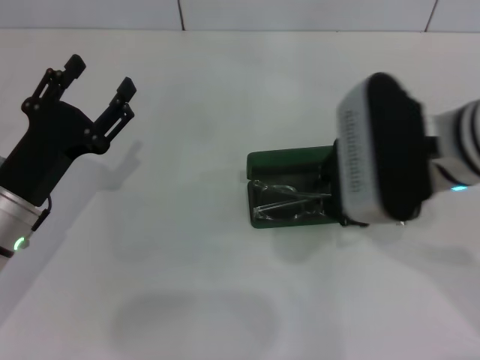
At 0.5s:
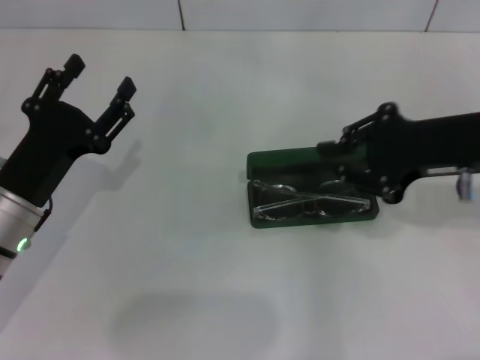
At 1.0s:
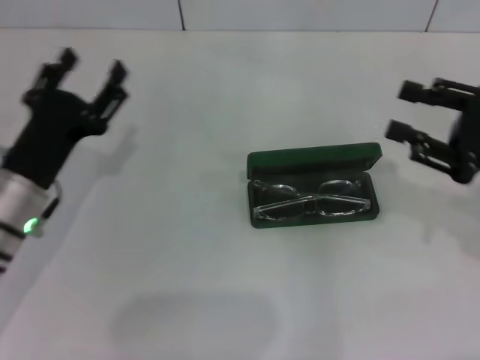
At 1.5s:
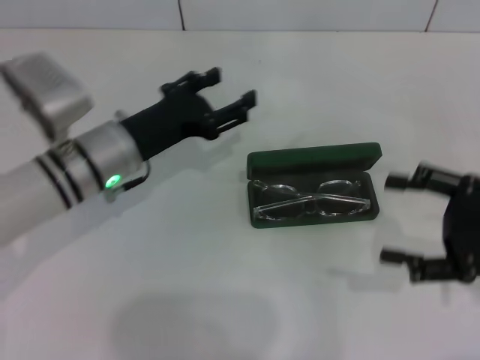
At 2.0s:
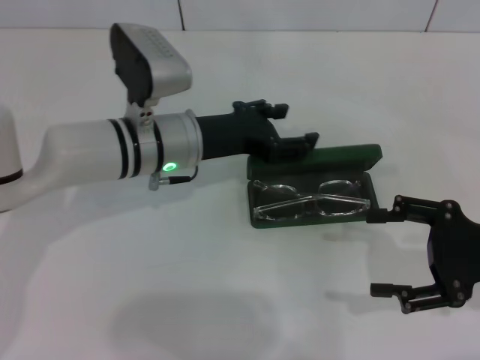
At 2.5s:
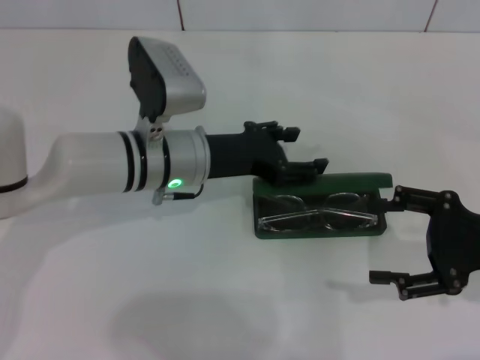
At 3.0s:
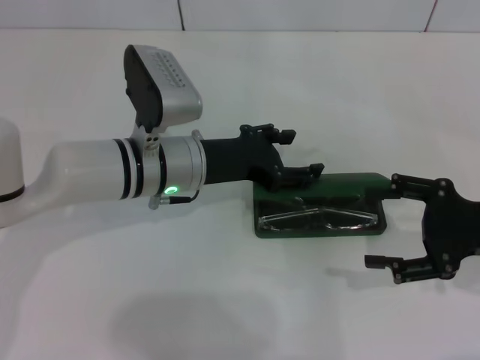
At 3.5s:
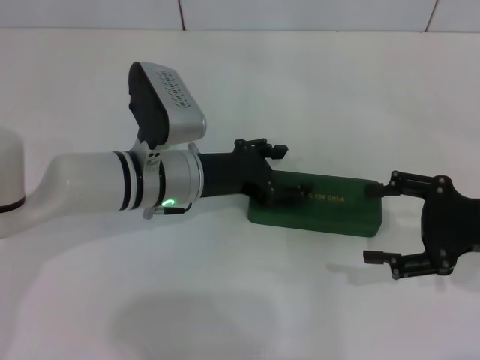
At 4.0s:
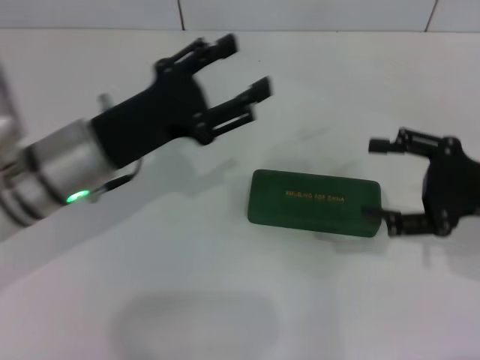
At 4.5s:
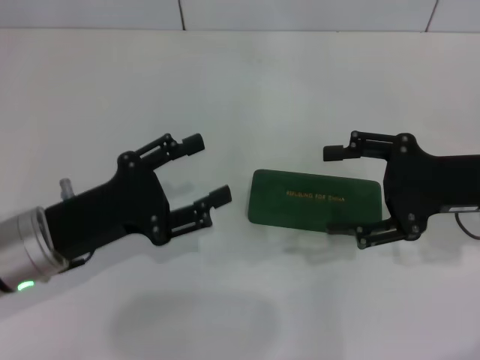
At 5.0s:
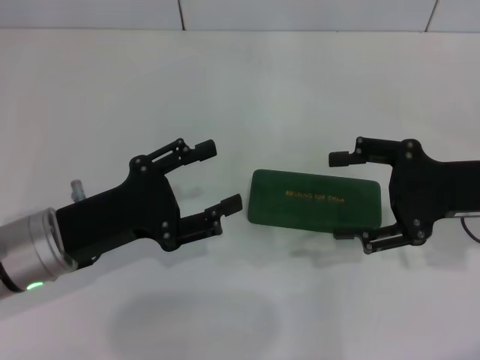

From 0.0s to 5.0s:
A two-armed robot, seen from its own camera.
Step, from 0.0s to 3.0s: Close the glasses case with your left hand.
From 0.0s to 2.5s: The right gripper travels to the right and downward by about 20 cm, and opens; the left gripper moves to the right and forward, approximately 15 cm.
From 2.5s to 5.0s: The right gripper moves some 5 cm. Meanwhile the left gripper shifts about 15 cm to the left and backward.

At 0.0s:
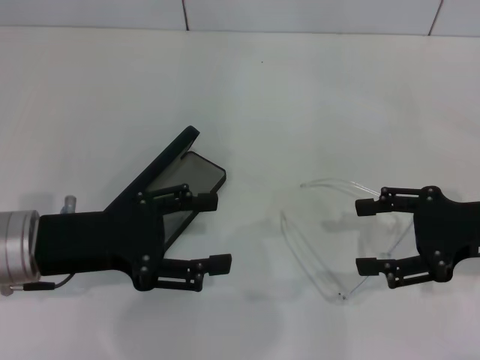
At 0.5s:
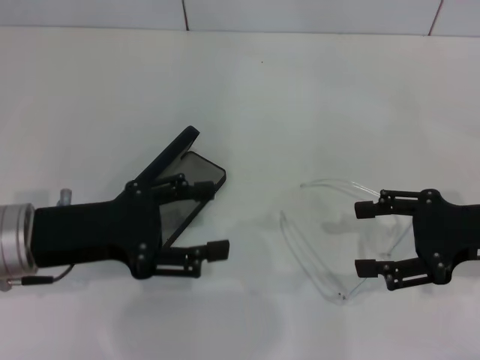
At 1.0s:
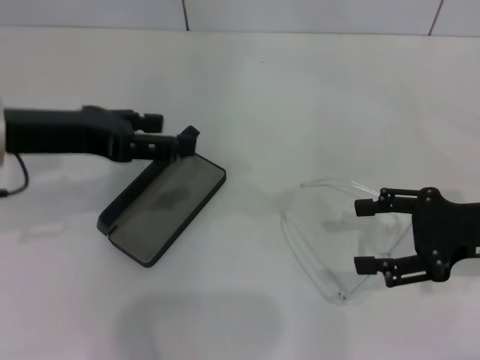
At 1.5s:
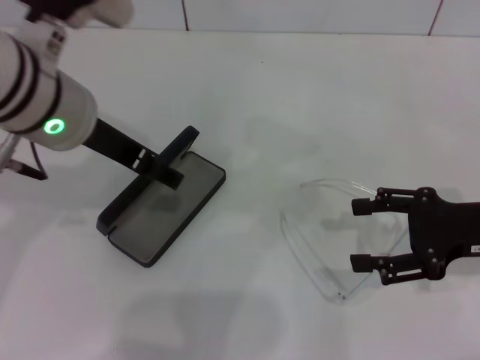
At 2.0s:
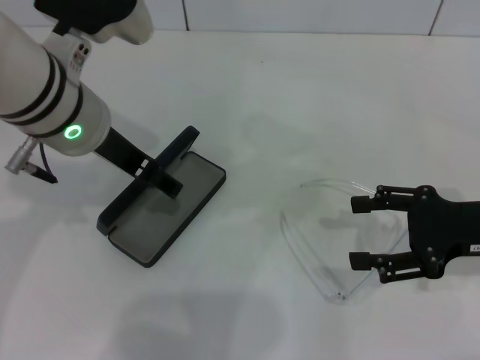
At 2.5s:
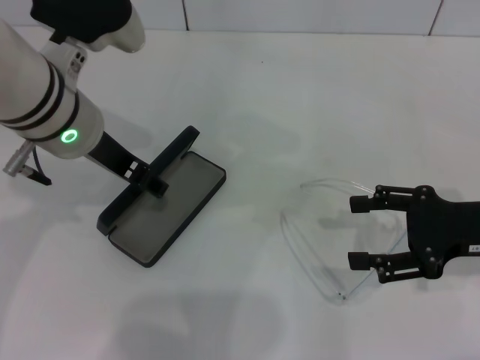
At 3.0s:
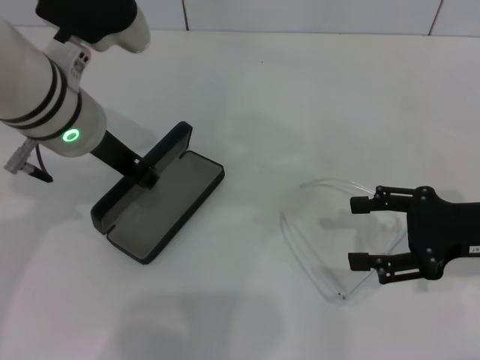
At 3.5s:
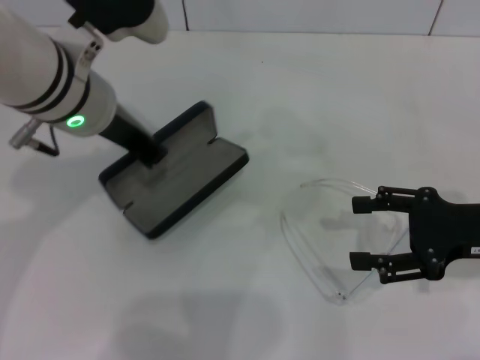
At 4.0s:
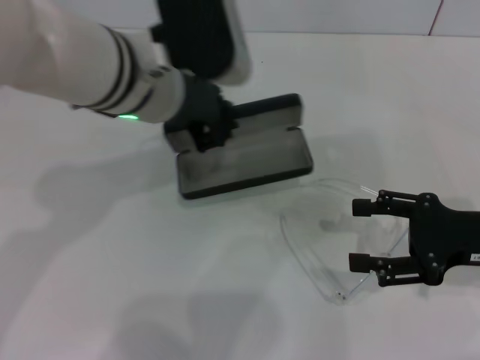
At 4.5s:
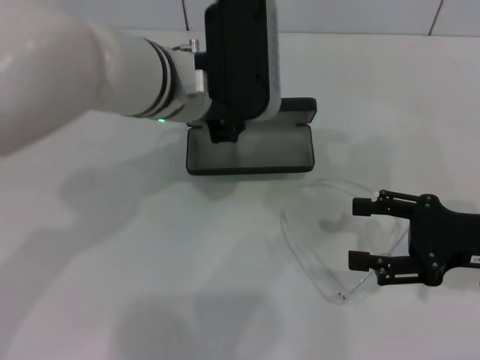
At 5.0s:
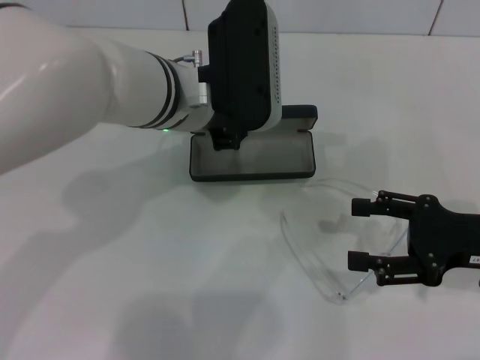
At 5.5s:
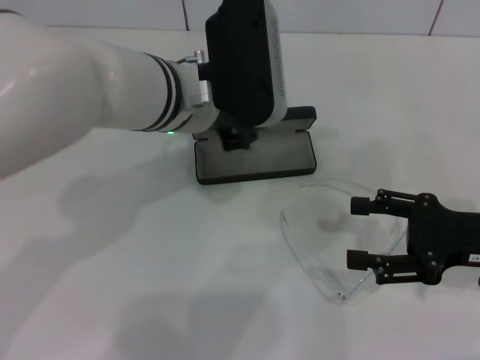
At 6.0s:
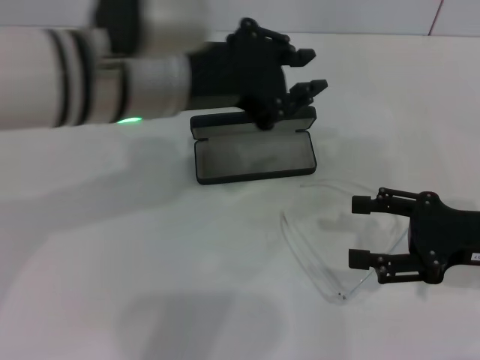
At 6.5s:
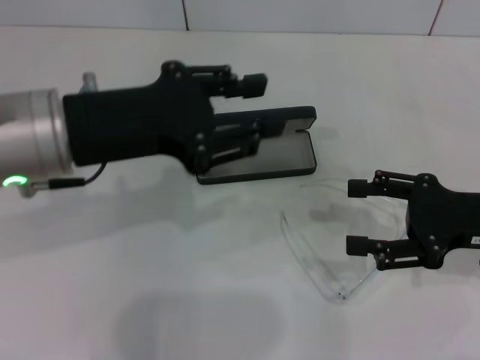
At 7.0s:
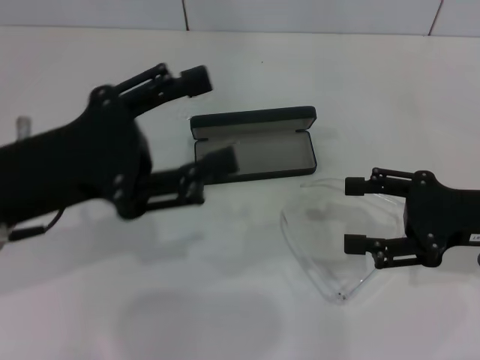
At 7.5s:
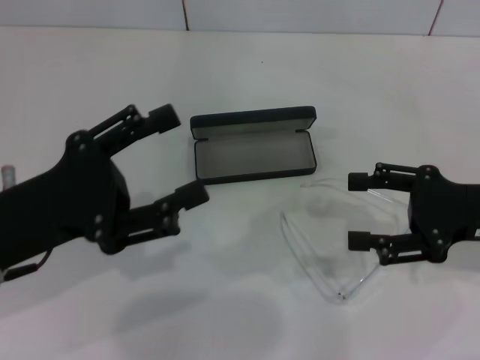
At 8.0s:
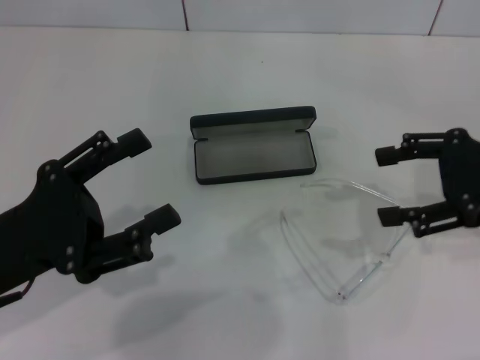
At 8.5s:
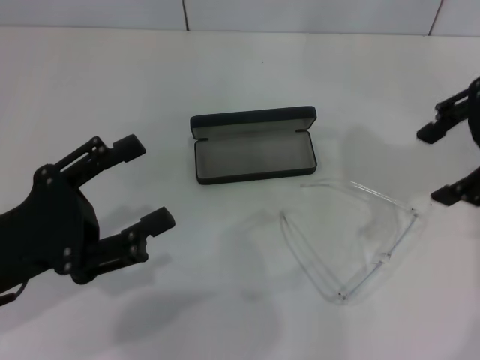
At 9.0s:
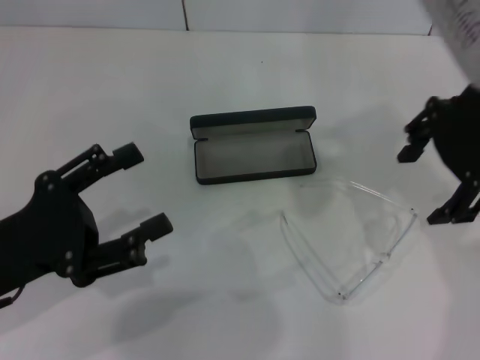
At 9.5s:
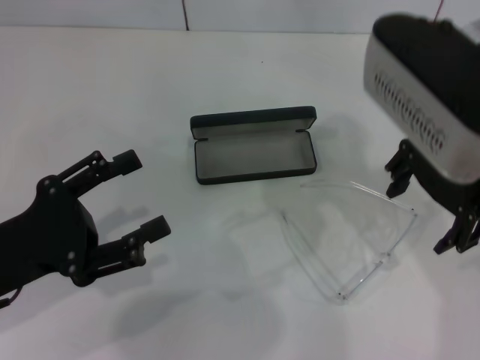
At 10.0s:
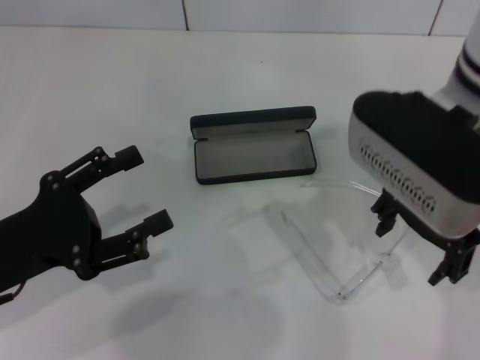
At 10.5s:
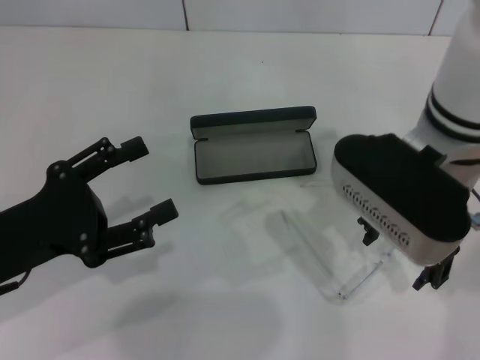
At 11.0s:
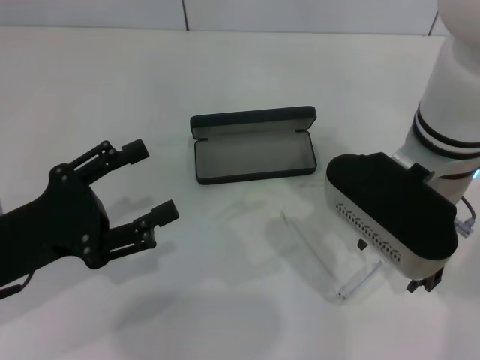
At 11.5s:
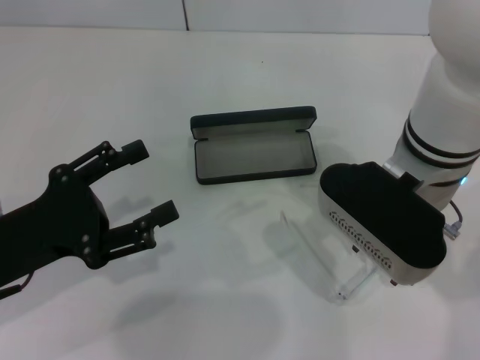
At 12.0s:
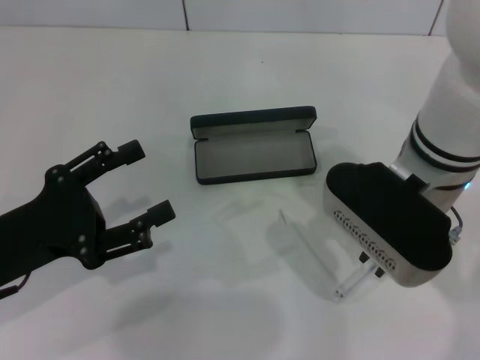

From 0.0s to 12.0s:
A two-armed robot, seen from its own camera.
Step, from 0.0s to 3.0s: Grab the glasses case with your left hand.
Step, from 3.5s to 5.0s: Place the glasses case in the center of the table with your left hand.
From 0.0s to 2.0s: The left gripper goes approximately 15 cm upward, forward and to the right.
From 2.0s to 4.0s: The left gripper travels to the right by some 5 cm, and closes its fingers.
From 6.0s to 8.0s: The left gripper shifts roughly 20 cm to the left, downward and backward, and opens up. The right gripper heads upward, covering about 10 cm.
From 8.0s to 10.0s: The right gripper travels to the left by about 15 cm.
From 10.0s to 12.0s: The right gripper heads downward, covering about 5 cm, and closes.

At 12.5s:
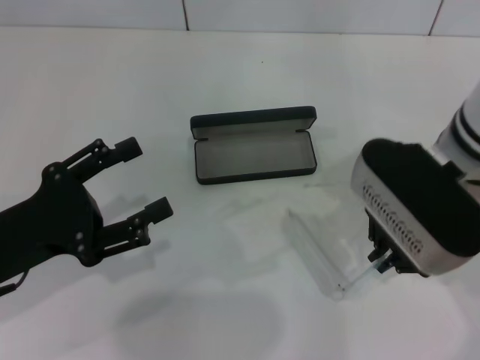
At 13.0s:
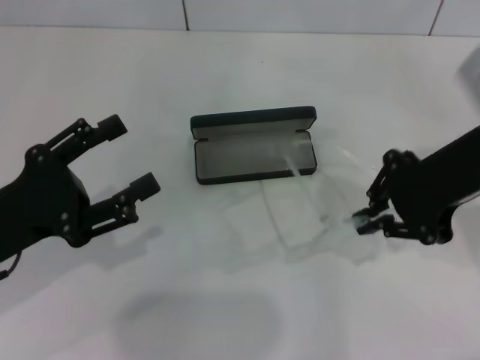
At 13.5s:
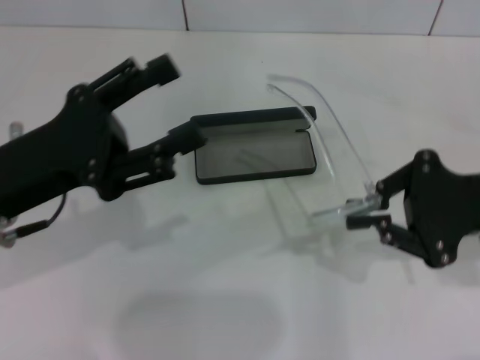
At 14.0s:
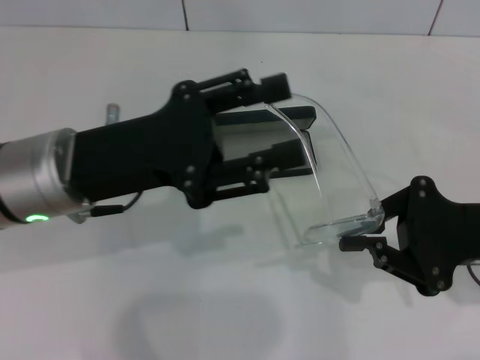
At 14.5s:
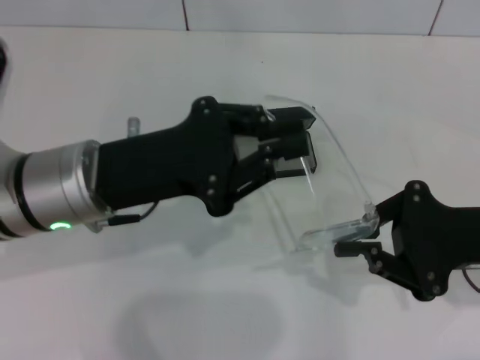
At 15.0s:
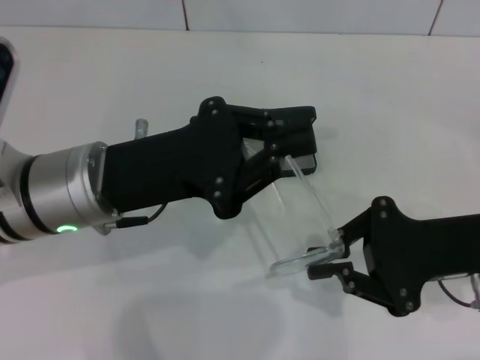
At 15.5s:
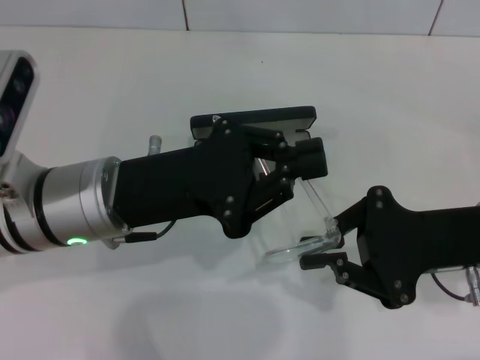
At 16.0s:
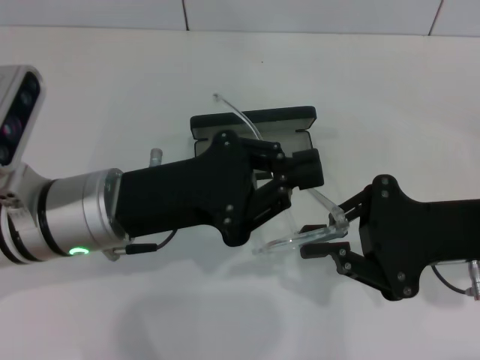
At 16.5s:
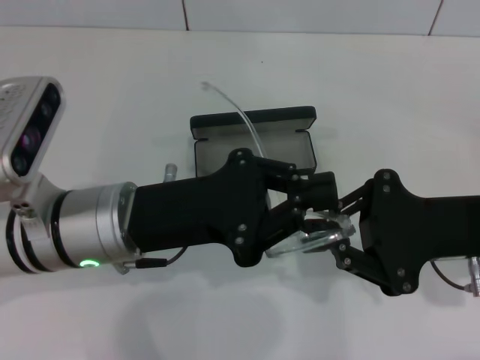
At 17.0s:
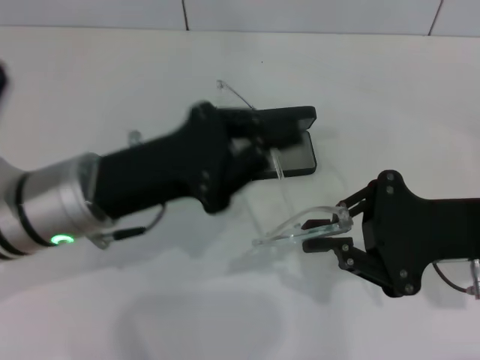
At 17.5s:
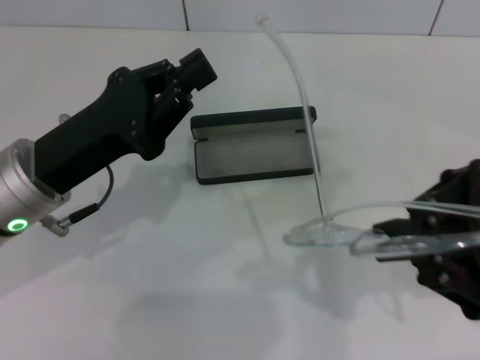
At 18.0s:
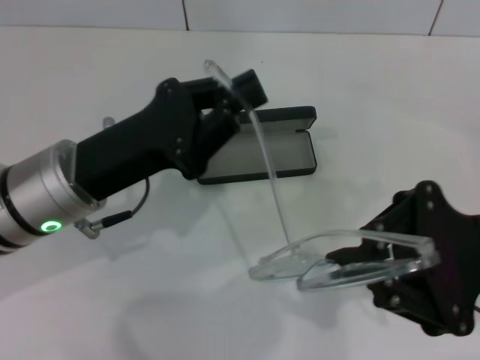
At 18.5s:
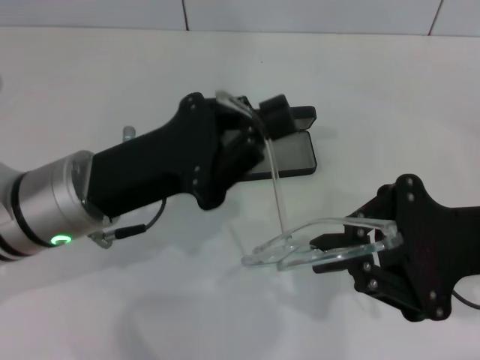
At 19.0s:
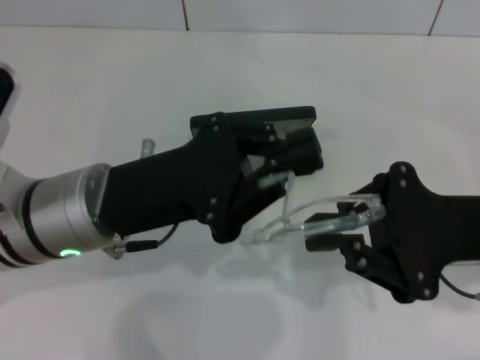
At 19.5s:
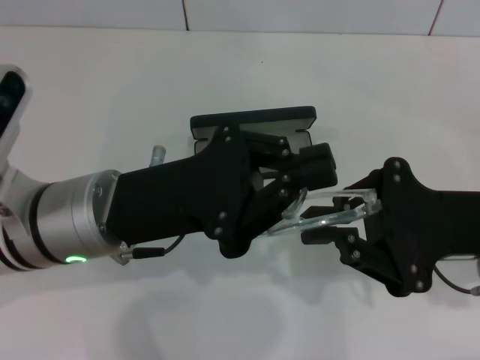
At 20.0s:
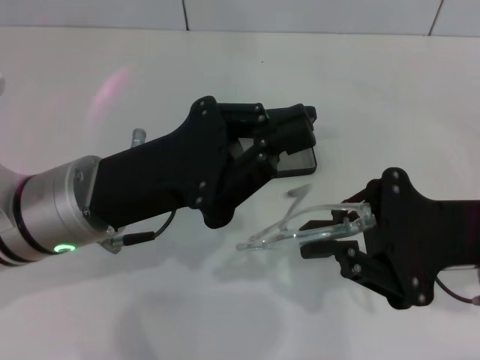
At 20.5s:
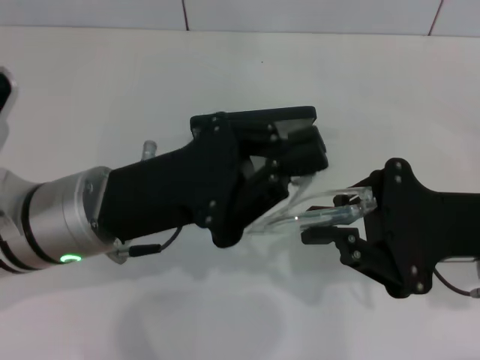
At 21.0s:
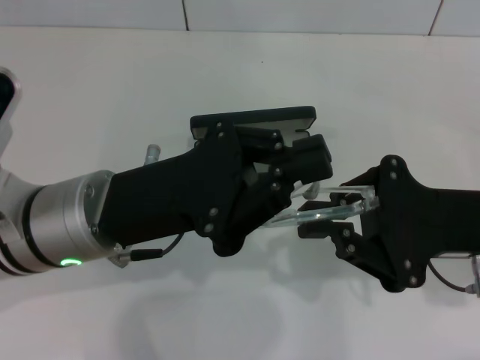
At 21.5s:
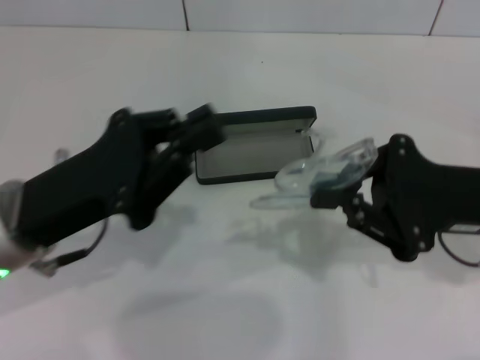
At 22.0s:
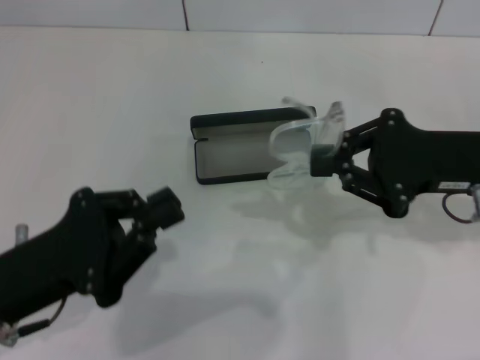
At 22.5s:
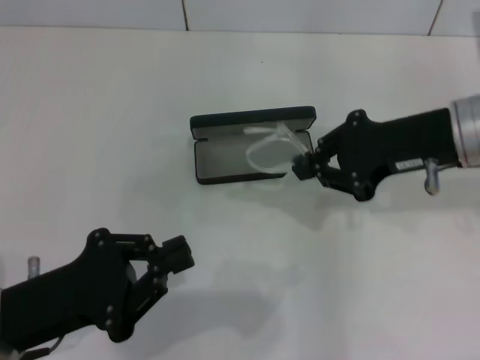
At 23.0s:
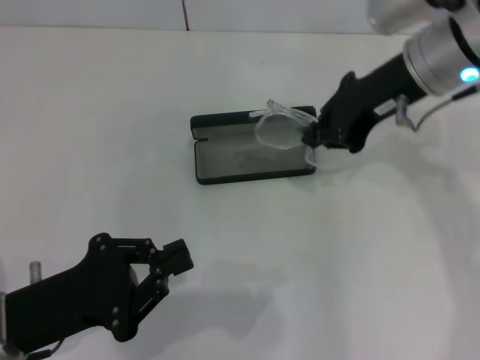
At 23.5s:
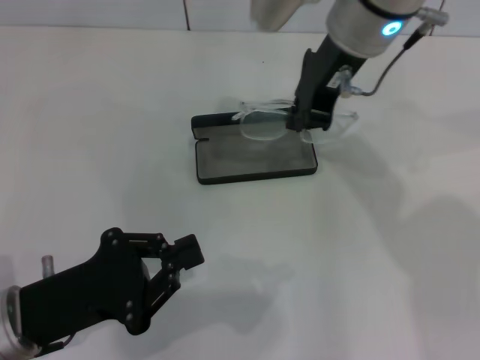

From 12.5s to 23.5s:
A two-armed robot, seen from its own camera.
Step, from 12.5s to 21.0s: Fold the frame with your left hand.
From 12.5s to 14.5s: The right gripper heads to the right and downward, covering roughly 15 cm, while the left gripper is displaced to the right and forward by roughly 10 cm, and closes up.
From 14.5s to 16.0s: The left gripper closes its fingers.
From 20.0s to 21.5s: The left gripper shifts by some 5 cm.
From 21.5s to 23.5s: The left gripper moves downward and backward, about 10 cm, while the right gripper is displaced to the left, forward and upward by roughly 25 cm.
